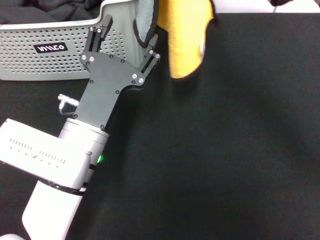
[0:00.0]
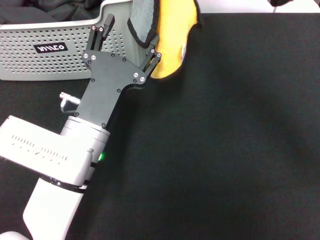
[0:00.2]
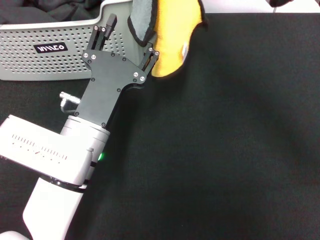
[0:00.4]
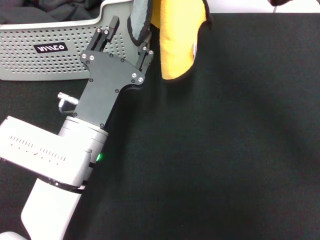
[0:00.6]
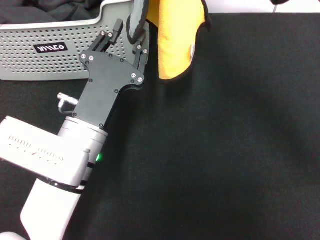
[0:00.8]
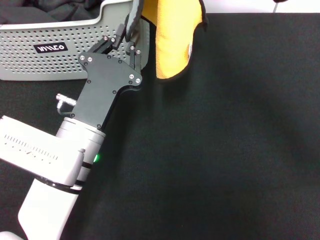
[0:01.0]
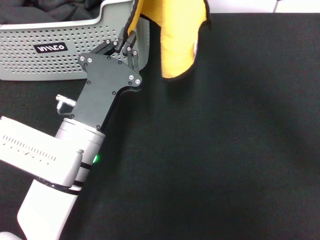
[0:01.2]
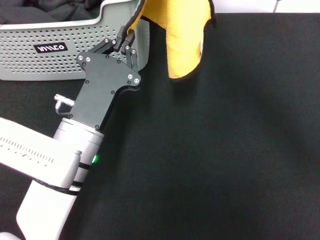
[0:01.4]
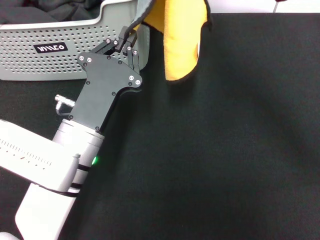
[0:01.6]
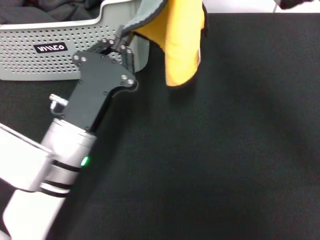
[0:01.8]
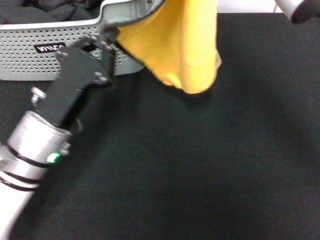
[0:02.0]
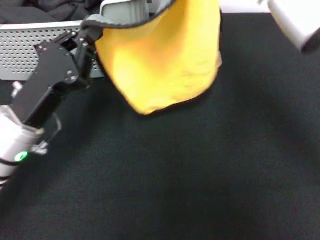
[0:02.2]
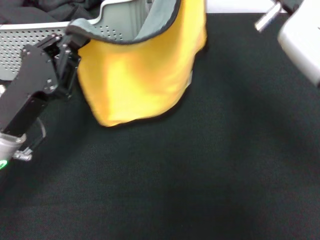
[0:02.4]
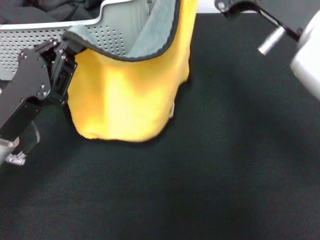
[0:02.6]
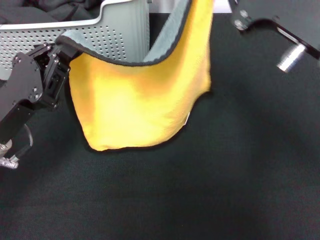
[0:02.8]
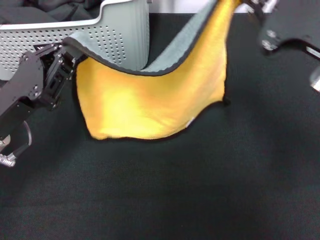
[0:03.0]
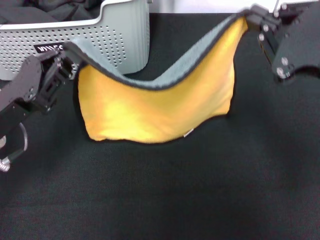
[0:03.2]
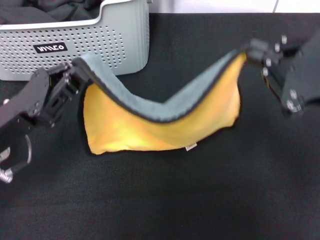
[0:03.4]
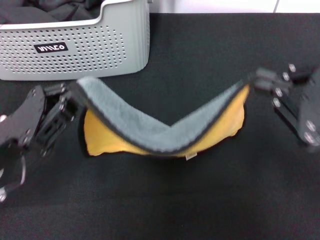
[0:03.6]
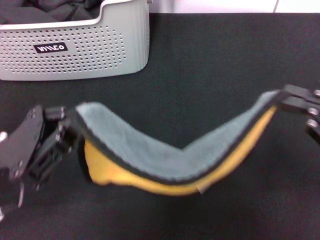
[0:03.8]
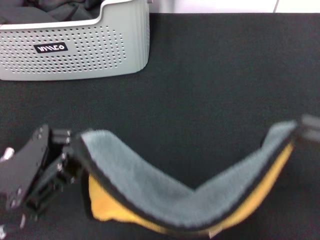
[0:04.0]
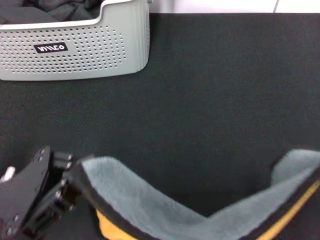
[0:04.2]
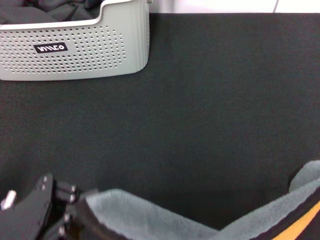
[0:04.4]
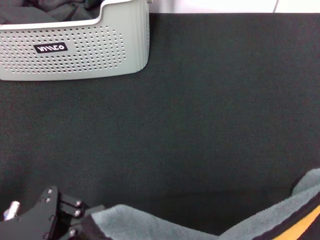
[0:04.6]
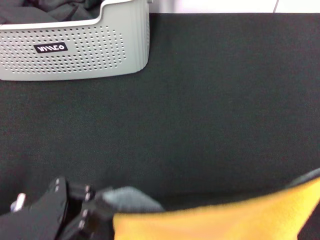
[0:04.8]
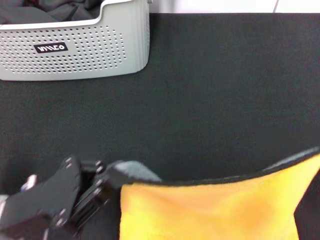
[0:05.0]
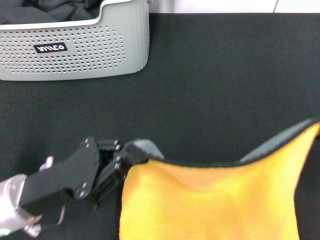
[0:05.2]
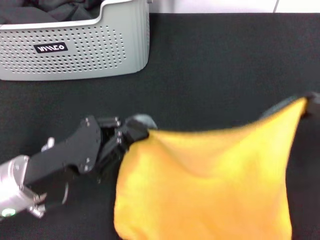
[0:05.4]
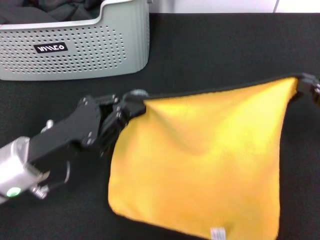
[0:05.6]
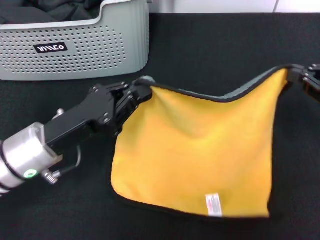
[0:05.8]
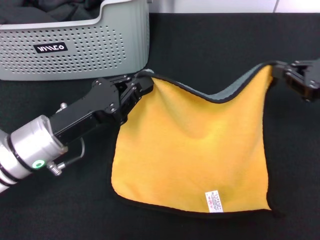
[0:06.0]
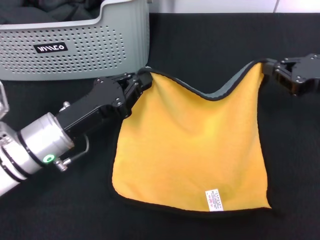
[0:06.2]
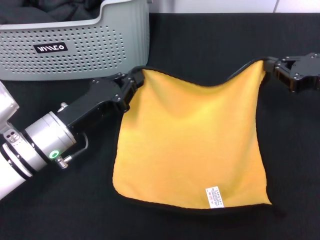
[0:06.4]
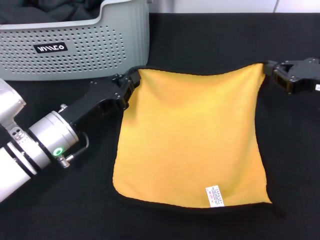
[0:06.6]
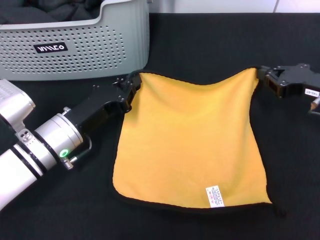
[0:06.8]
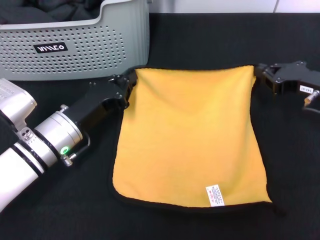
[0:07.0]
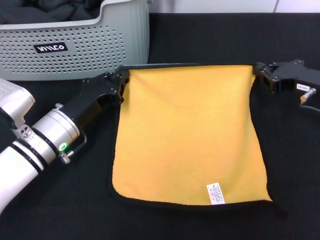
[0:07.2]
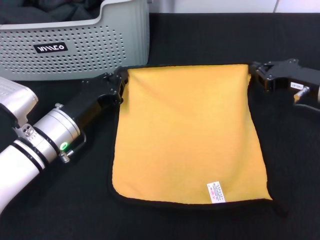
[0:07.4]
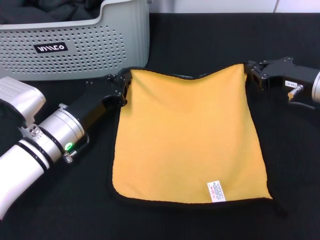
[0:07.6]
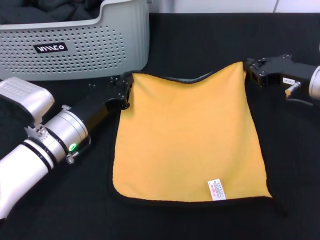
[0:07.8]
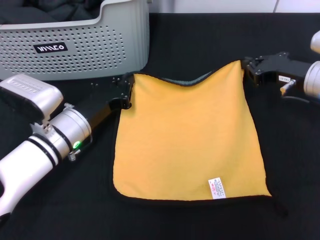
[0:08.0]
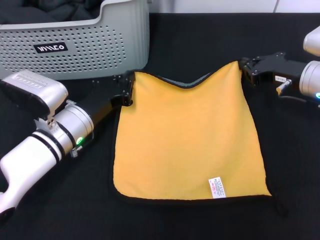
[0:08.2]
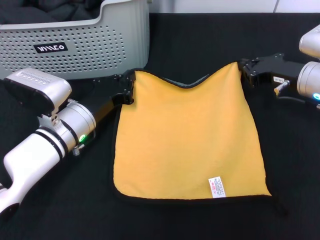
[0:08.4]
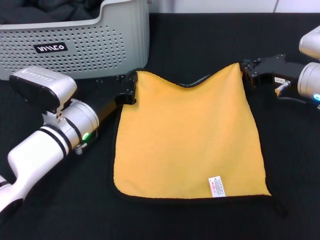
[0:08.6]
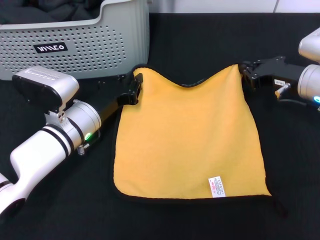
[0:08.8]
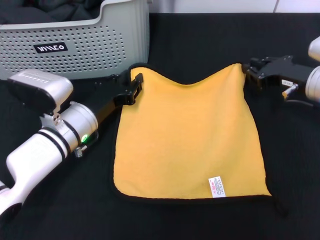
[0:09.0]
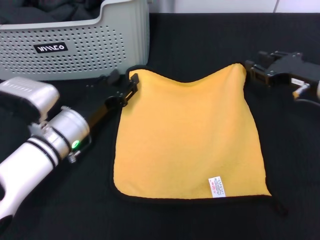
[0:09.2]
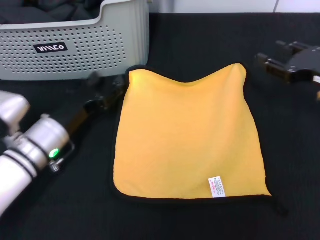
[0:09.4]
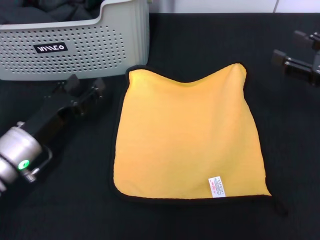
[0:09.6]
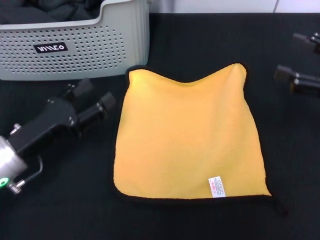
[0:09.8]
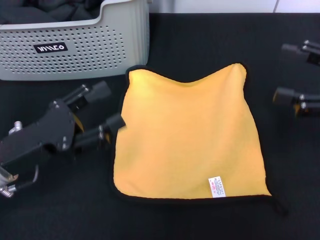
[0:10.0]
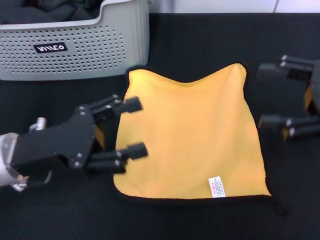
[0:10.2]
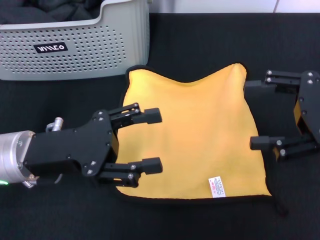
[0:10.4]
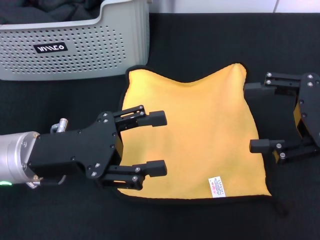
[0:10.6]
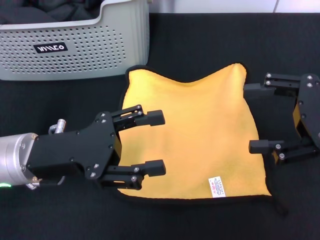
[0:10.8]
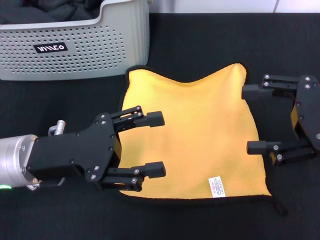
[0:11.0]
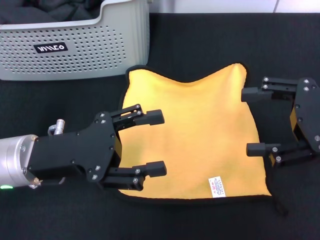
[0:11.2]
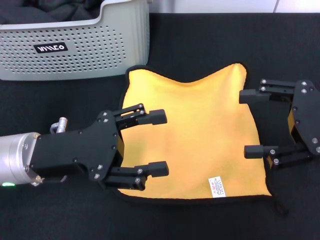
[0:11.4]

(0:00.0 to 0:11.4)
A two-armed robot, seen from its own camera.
Task of the whole recording: pick up the towel from the storage box and lay it flat on the black tablecloth.
Step, 0:00.0 - 0:08.8: Spread the towel flat with the right gripper.
0:00.0 - 0:01.4: The left gripper closes its fingers.
0:01.4 - 0:02.8: The right gripper is displaced to the right, downward and backward by approximately 10 cm. Meanwhile the left gripper shifts about 10 cm to the left.
0:02.8 - 0:04.2: The left gripper travels backward by some 5 cm; the right gripper moves to the right and backward, roughly 20 cm.
0:04.2 - 0:05.6: The right gripper goes about 15 cm forward and downward; the left gripper is displaced forward by some 5 cm.
0:05.6 - 0:07.2: The right gripper shifts roughly 15 cm forward, downward and to the left. Meanwhile the left gripper is displaced forward and downward by roughly 10 cm.
0:07.2 - 0:08.6: There are only small adjustments of the grippers.
0:08.6 - 0:10.0: The left gripper heads backward, to the left and upward, covering about 15 cm, and opens its fingers, while the right gripper shifts approximately 15 cm backward, upward and to the right, and opens.
0:10.0 - 0:11.4: The left gripper shifts by about 5 cm.

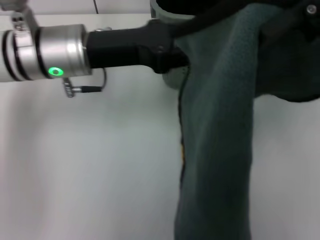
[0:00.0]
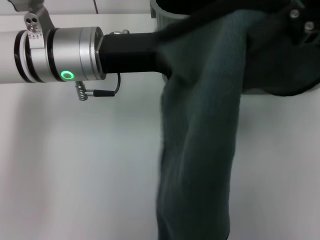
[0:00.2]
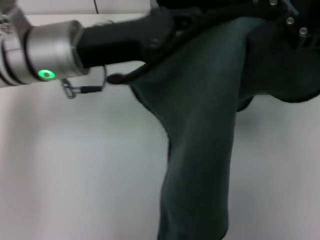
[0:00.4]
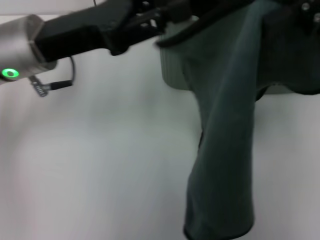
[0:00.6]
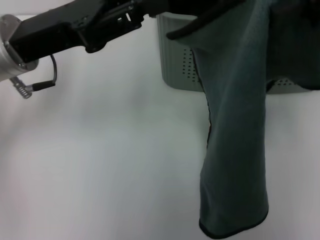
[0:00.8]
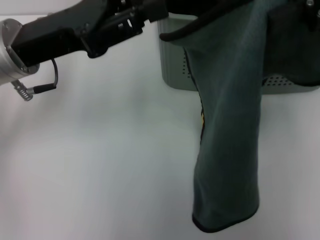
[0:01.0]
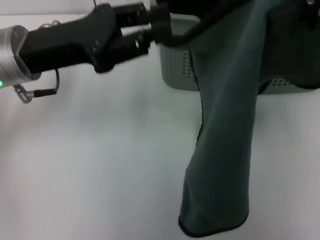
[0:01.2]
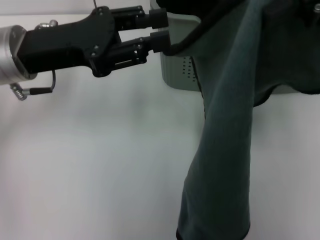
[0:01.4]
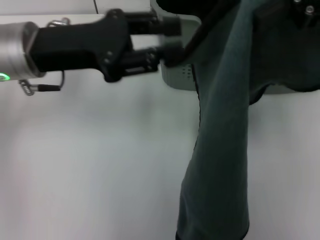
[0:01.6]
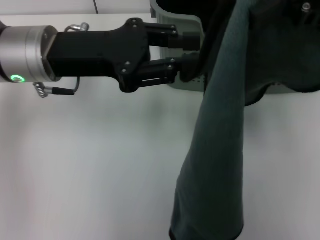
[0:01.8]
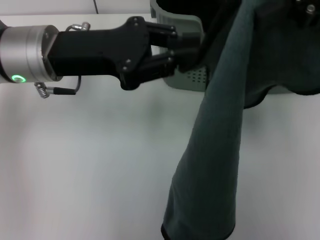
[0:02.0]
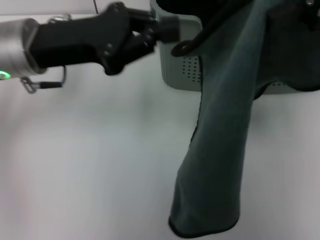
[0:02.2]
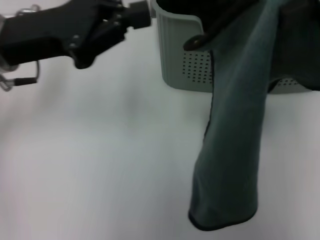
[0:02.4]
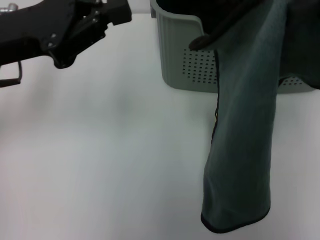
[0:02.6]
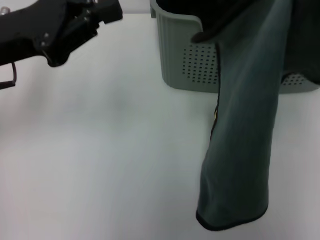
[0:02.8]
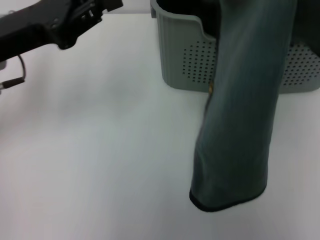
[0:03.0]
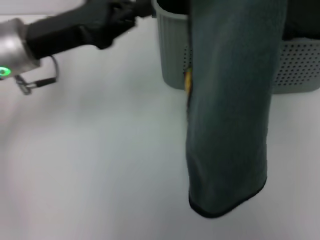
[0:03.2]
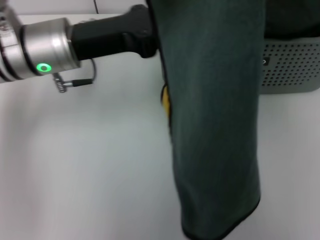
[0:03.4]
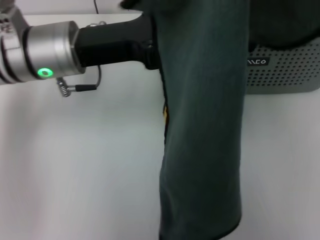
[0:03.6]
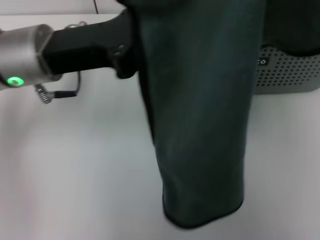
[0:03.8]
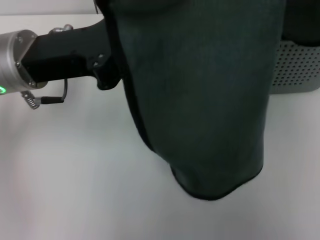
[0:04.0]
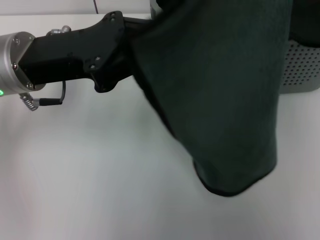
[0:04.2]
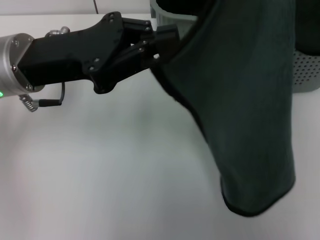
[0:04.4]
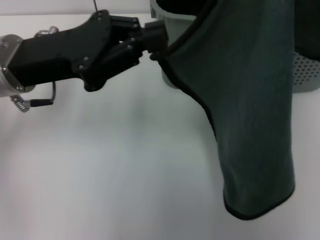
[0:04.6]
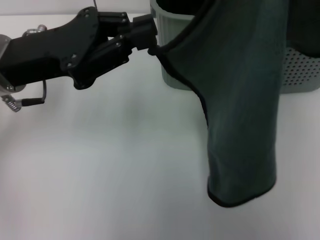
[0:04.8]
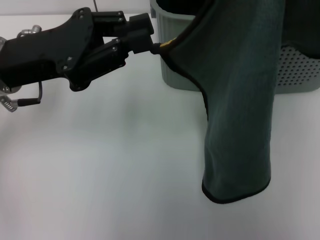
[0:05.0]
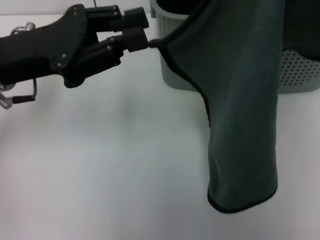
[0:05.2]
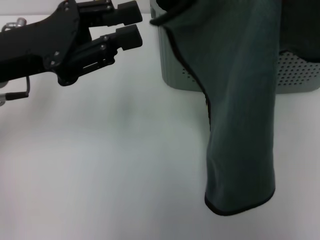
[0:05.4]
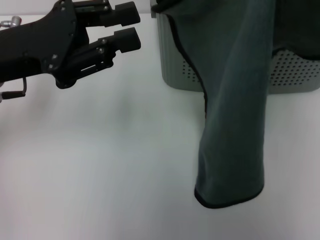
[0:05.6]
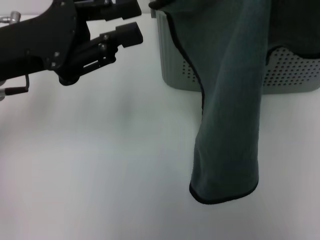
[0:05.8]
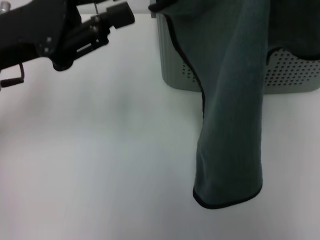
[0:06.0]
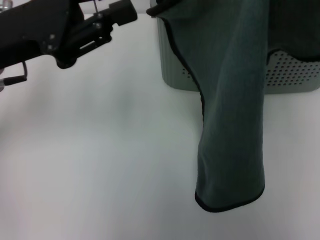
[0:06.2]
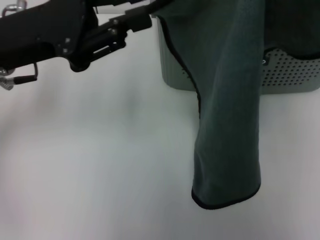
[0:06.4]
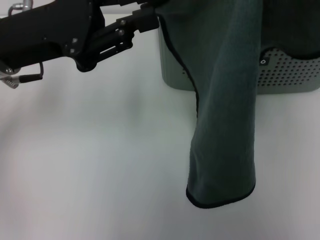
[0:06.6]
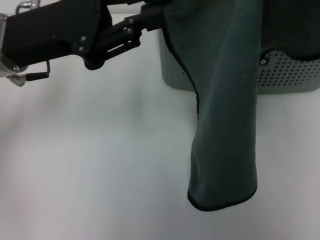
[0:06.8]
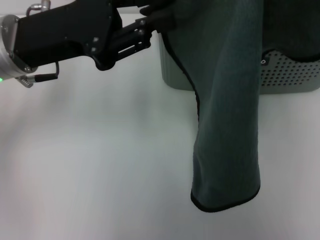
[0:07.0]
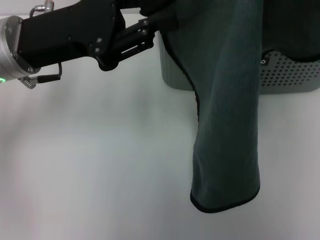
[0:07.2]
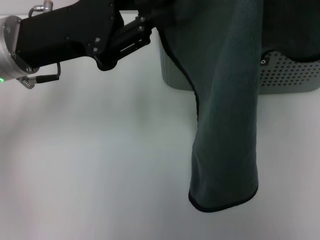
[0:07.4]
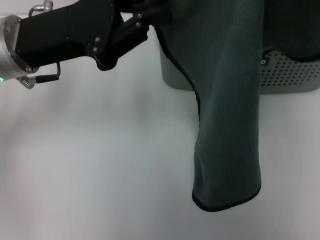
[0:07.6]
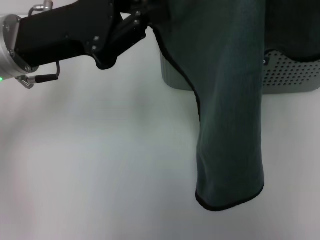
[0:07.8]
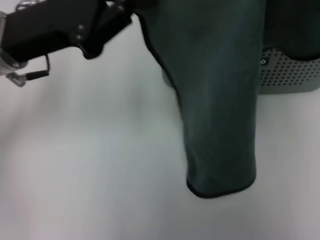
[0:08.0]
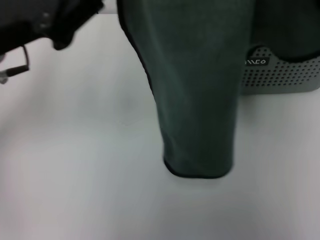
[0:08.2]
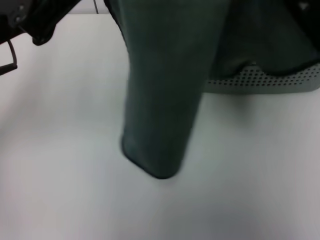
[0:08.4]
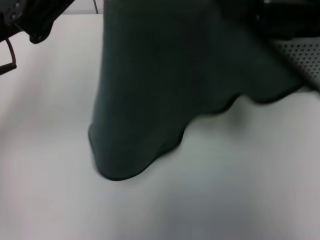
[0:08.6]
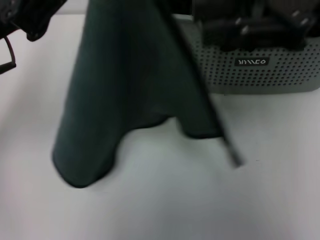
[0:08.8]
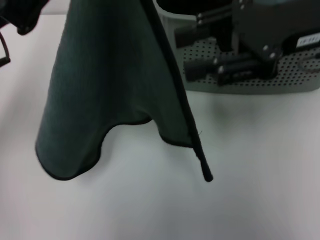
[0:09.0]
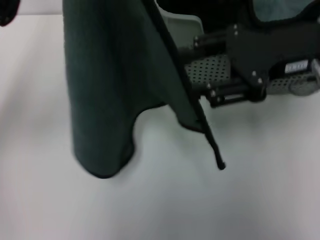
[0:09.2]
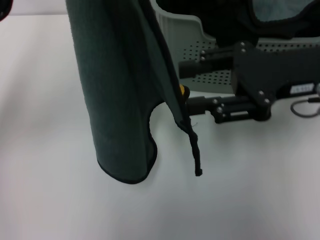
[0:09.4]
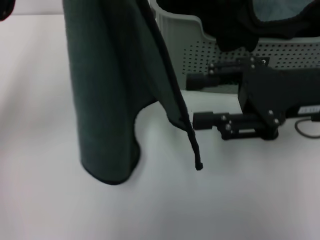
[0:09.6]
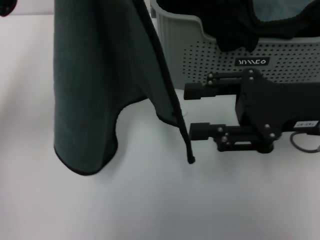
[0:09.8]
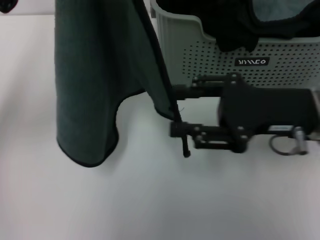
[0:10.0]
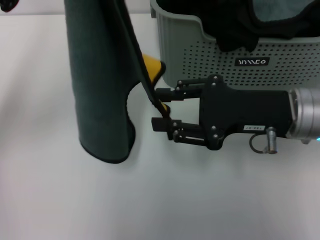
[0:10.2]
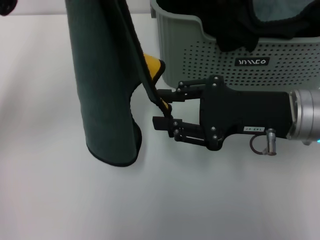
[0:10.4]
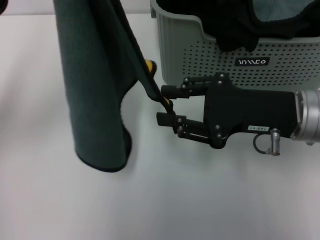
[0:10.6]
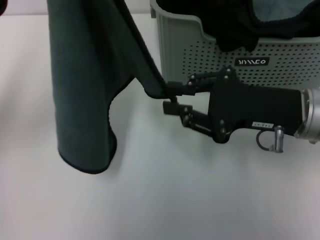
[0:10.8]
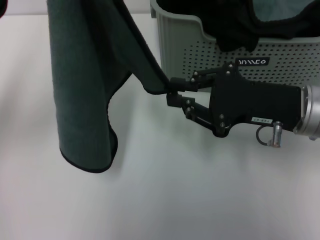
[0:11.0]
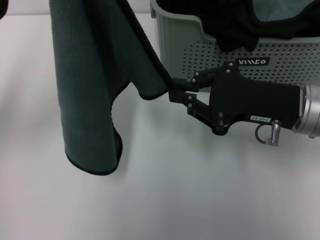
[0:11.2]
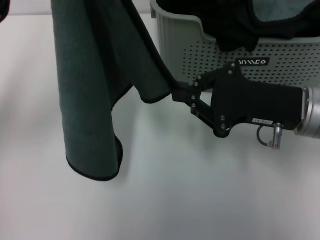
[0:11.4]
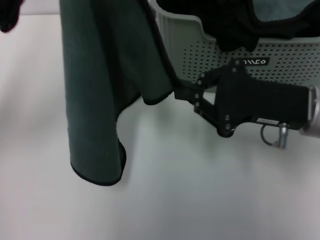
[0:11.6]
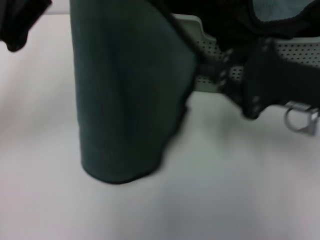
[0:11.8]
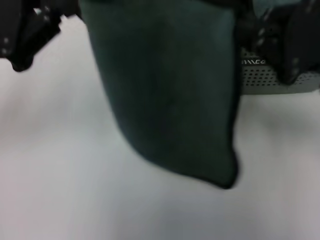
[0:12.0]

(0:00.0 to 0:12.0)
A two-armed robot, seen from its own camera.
Task of the whole recording: pick up the towel from the storage box and lay it flat on the table.
Step, 0:00.0 - 0:07.6: Spread the towel flat with the right gripper.
0:00.0 - 0:01.6: The left gripper changes place by approximately 5 cm.
0:01.6 - 0:03.0: The left gripper closes up.
0:03.0 - 0:04.4: The left gripper heads to the right, covering about 5 cm.
0:06.0 - 0:07.6: The grippers stay close to where they were, moving slightly.
0:07.6 - 0:09.0: The right gripper goes about 10 cm downward.
0:09.0 - 0:10.4: The right gripper is displaced downward and backward by about 10 cm.
0:10.4 - 0:12.0: The right gripper travels to the right by about 5 cm, and closes up.
